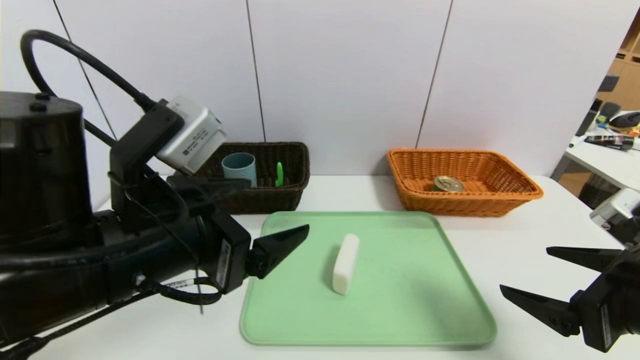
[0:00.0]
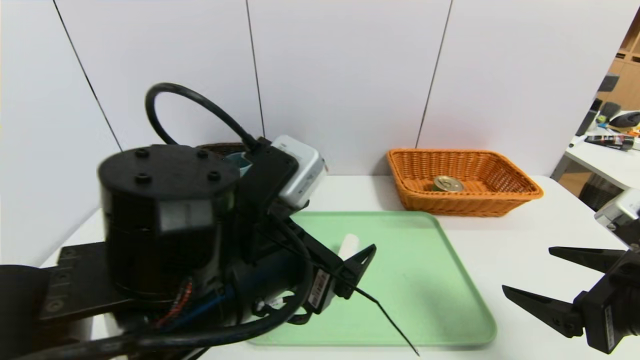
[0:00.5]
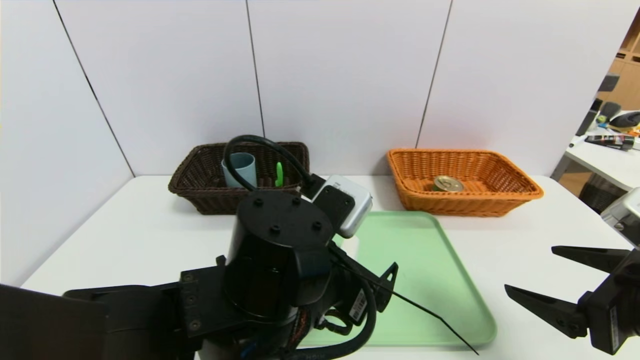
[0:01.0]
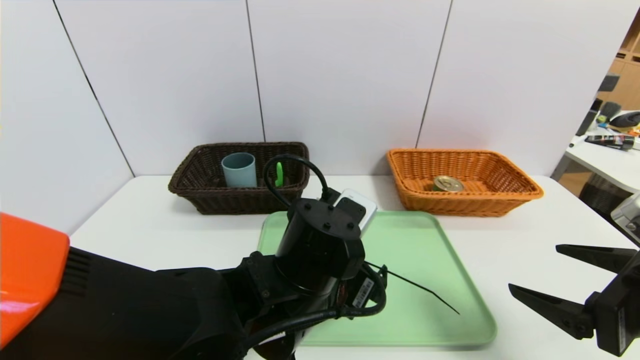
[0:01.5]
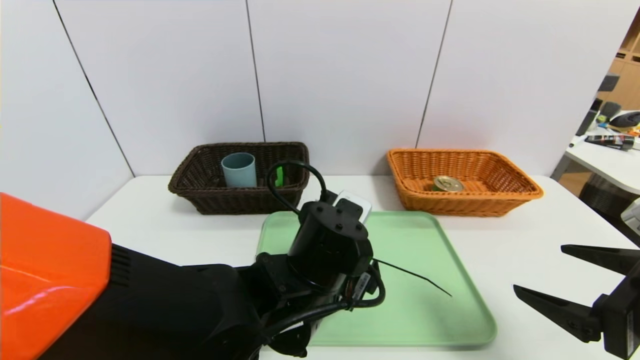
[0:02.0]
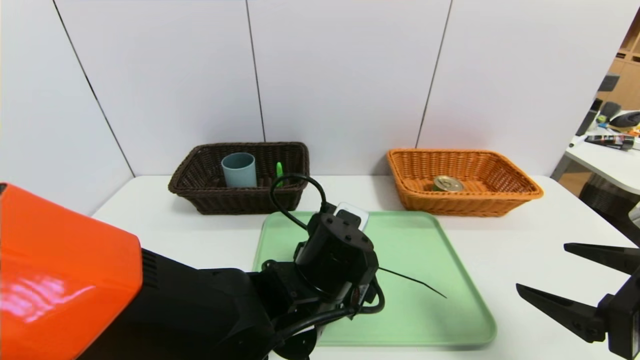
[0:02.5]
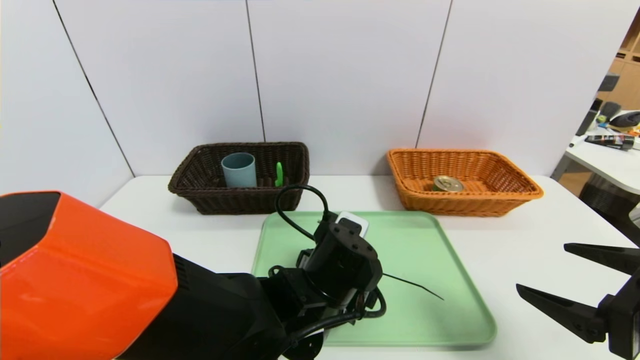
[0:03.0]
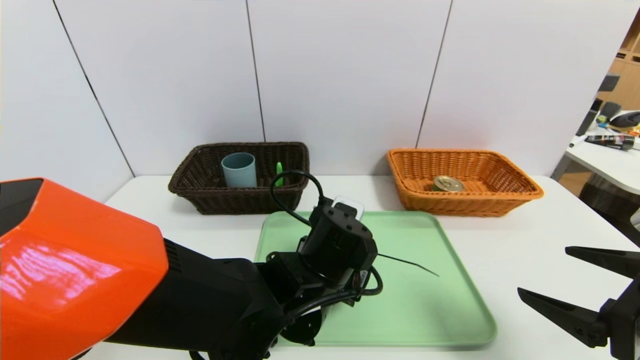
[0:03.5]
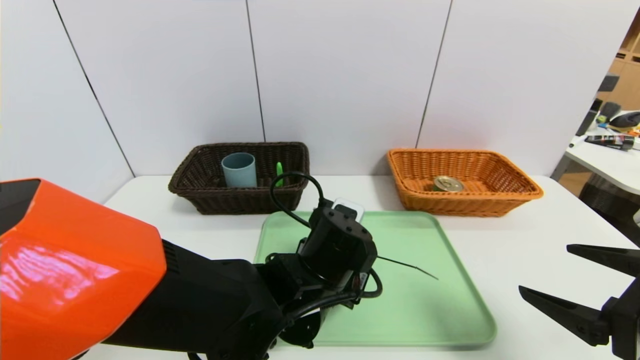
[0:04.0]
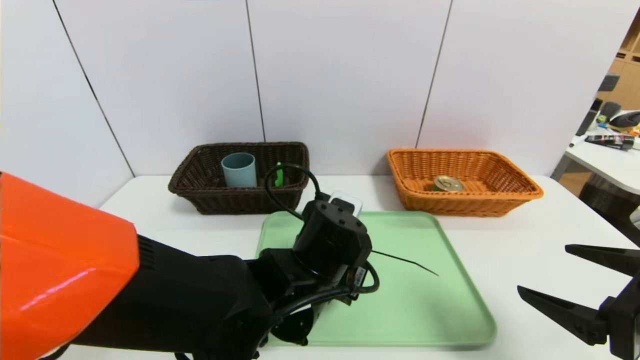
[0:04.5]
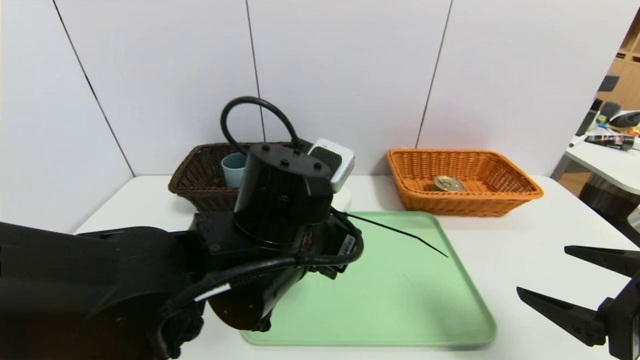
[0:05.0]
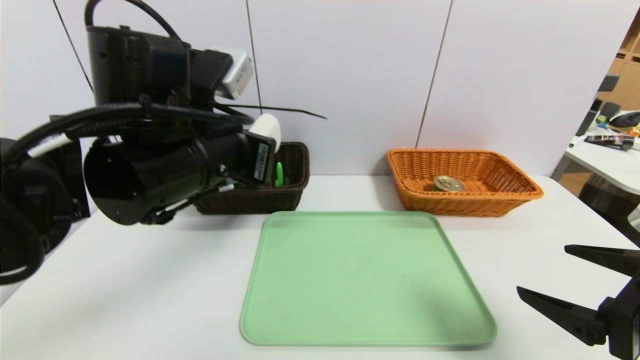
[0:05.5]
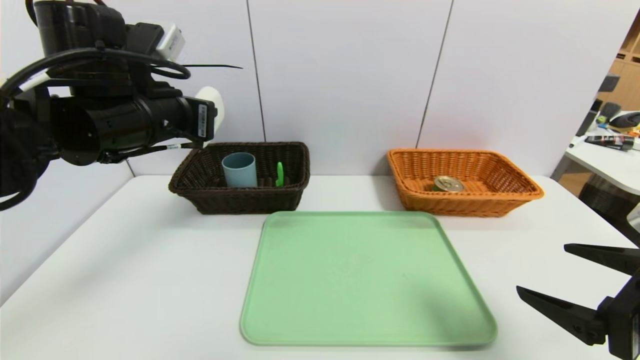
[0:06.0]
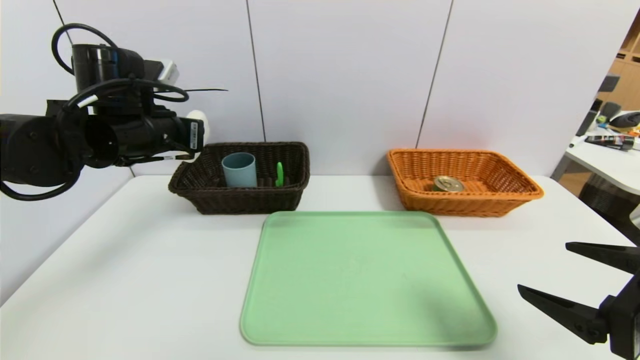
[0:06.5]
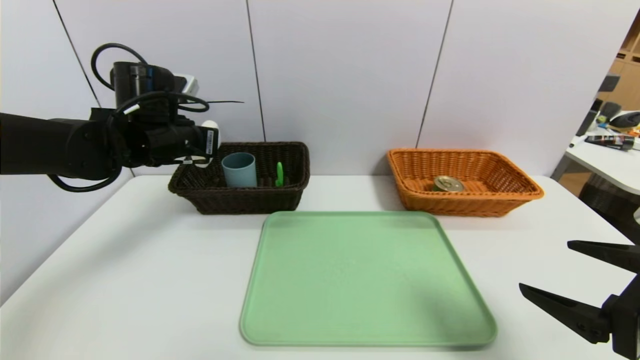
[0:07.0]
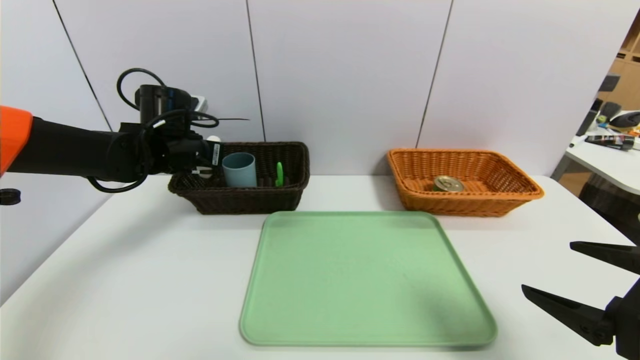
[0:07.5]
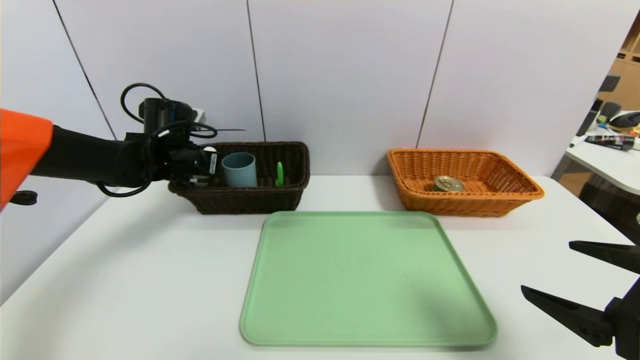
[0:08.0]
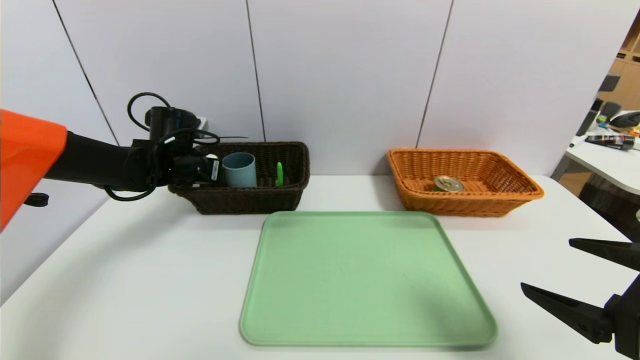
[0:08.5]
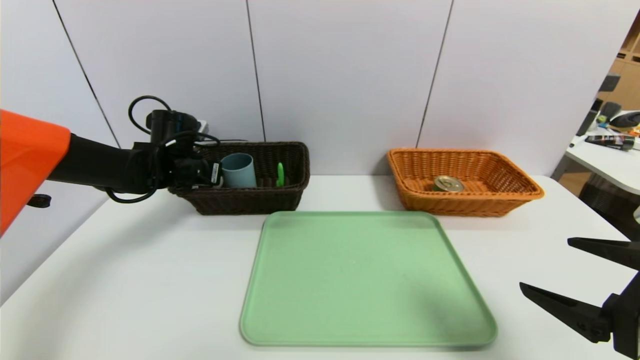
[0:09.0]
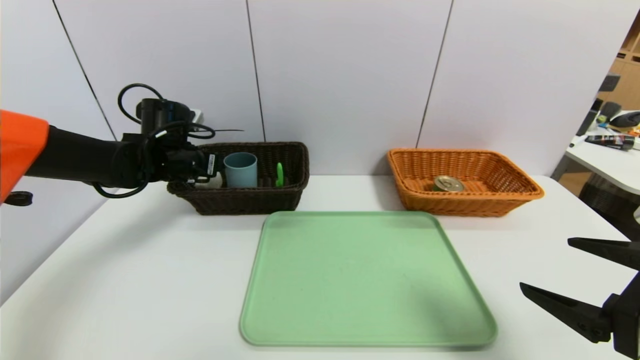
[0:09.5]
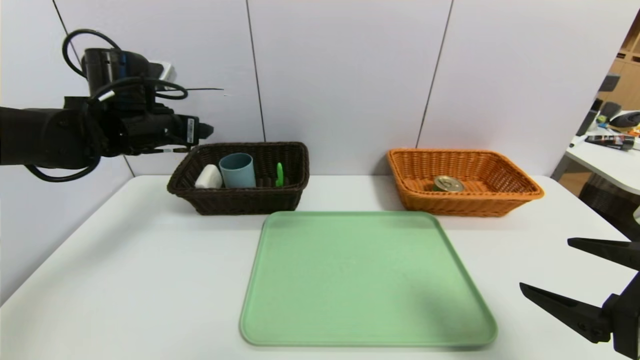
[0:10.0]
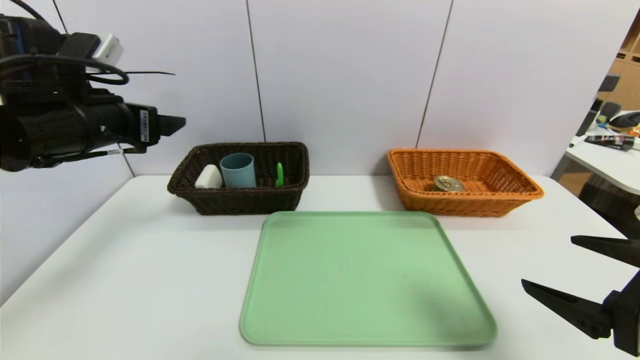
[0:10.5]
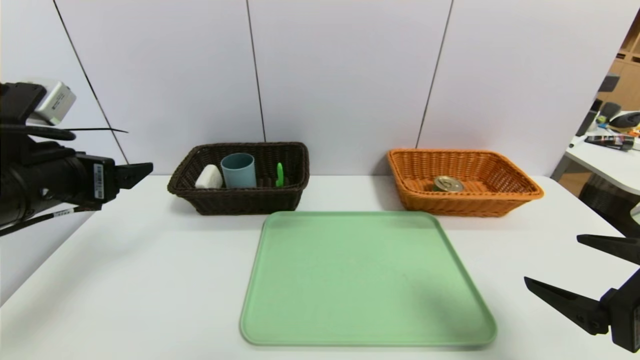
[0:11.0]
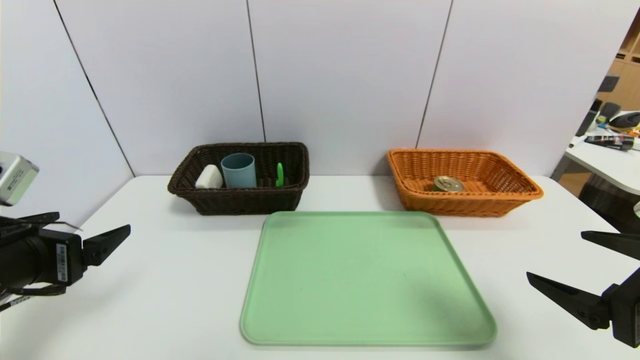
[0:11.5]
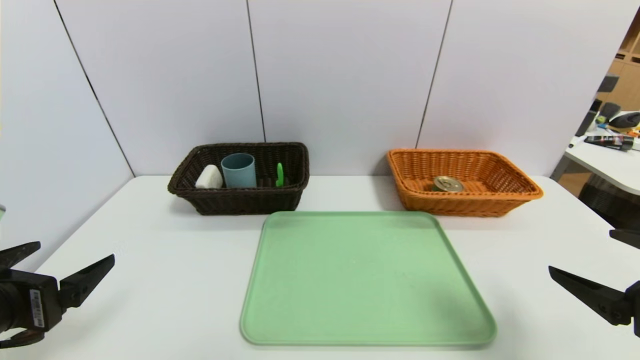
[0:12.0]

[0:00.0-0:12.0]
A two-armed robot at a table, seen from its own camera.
Task of the whole recording: place the food in the right basket with the right gripper, and place the non food items in the left basket with the left gripper.
Step, 0:00.0 to 0:10.0: Grasp the soap and put it in the left basket.
0:00.0 to 0:02.0: The left gripper is displaced to the right, downward and forward by some 20 cm.
0:02.0 to 0:04.0: The left gripper closes its fingers.
0:04.0 to 0:06.0: The left gripper travels to the left and upward by about 25 cm.
0:06.0 to 0:08.0: The left gripper travels forward and downward by approximately 15 cm.
0:08.0 to 0:10.0: The left gripper travels upward and backward by approximately 10 cm, and opens.
0:10.0 to 0:12.0: The left gripper shifts approximately 25 cm backward.

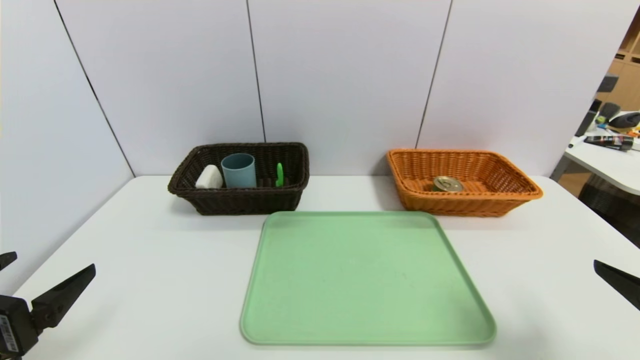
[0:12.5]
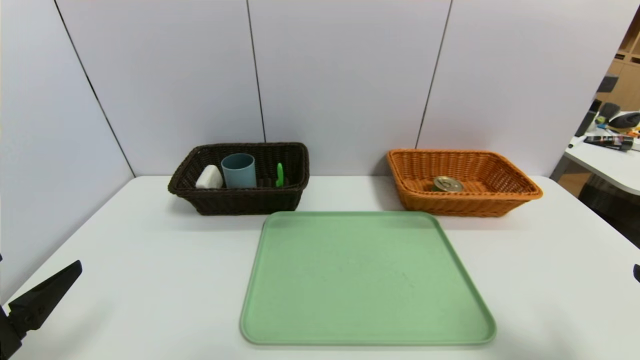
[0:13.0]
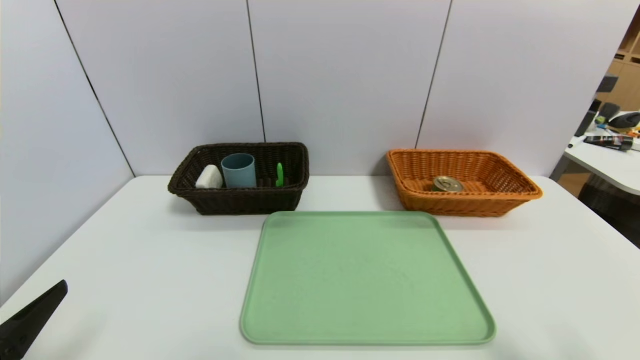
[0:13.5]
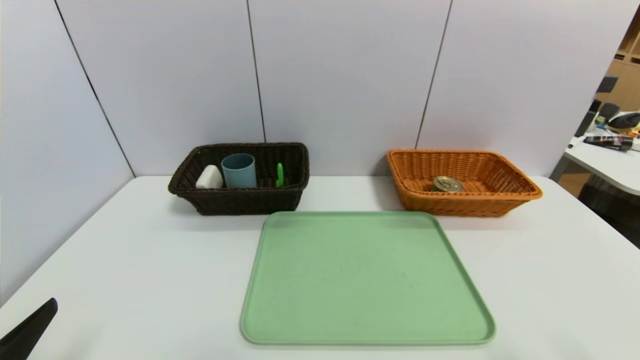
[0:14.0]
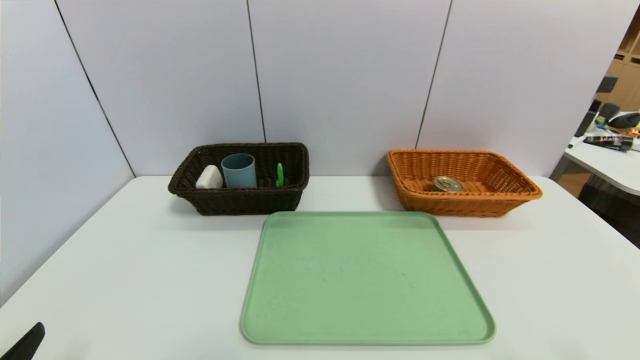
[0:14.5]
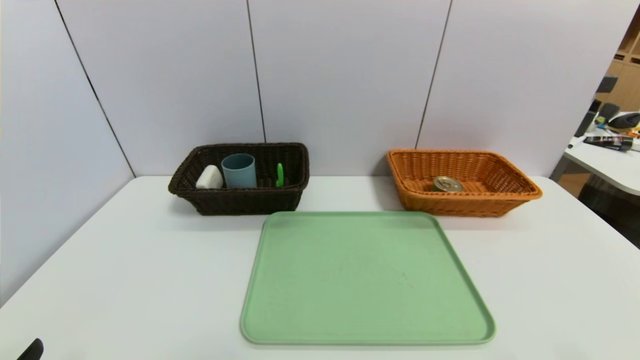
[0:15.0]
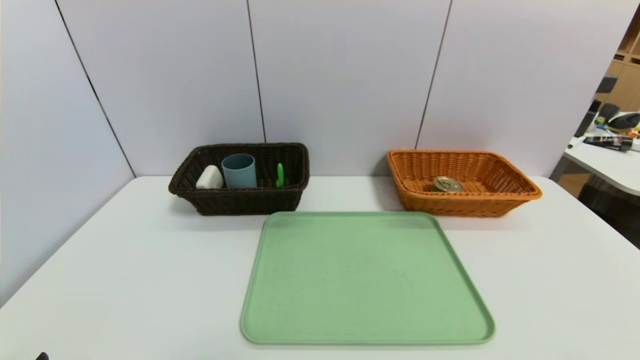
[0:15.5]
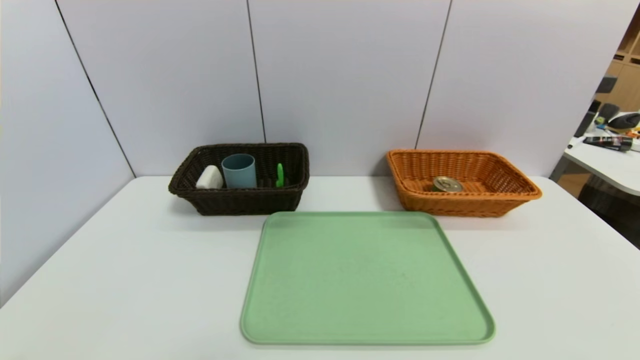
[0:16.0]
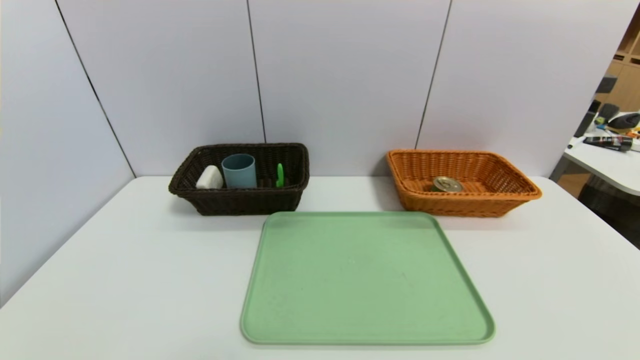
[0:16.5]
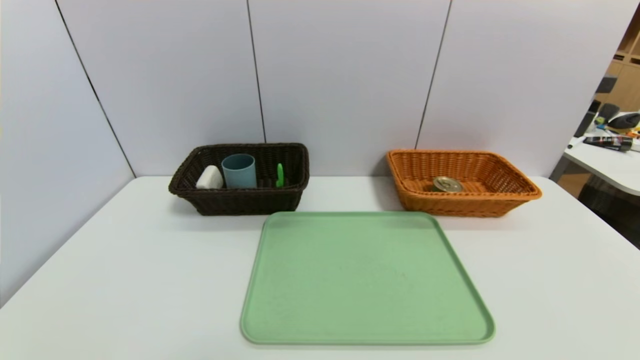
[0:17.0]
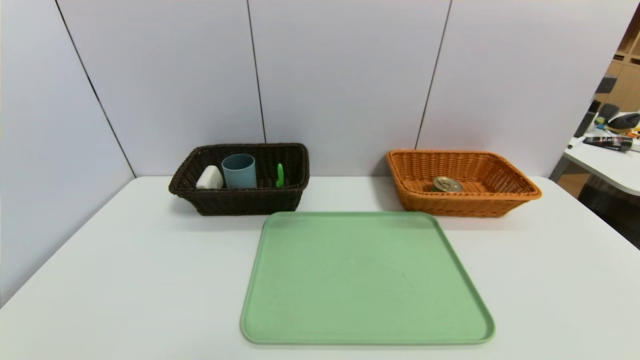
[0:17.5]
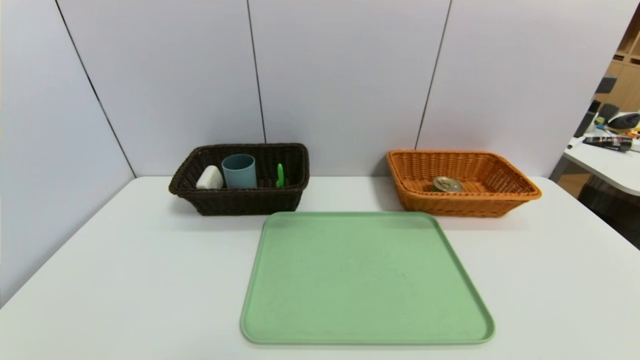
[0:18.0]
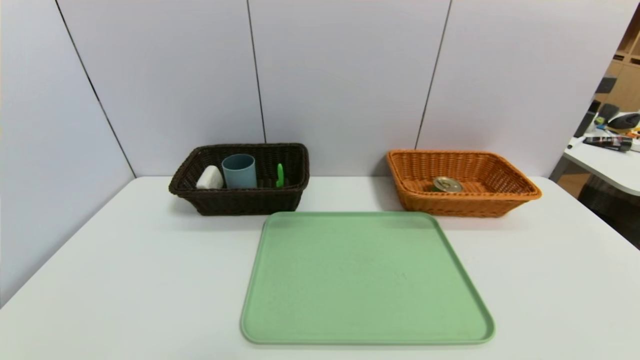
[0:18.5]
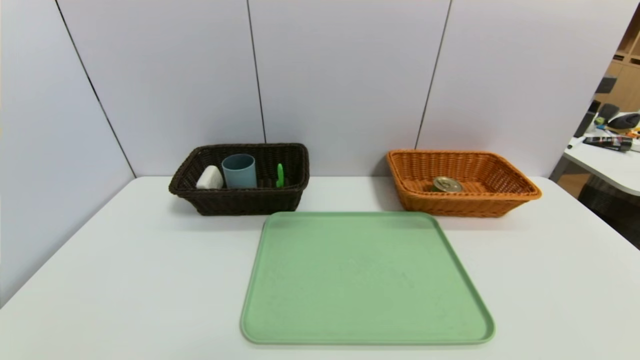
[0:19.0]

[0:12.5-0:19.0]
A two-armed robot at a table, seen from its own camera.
Task of the whole recording: place the food in the right basket with the right gripper, and place the non food items in the left basket with the left gripper.
0:12.5 to 0:14.5: Both grippers move backward, some 5 cm.

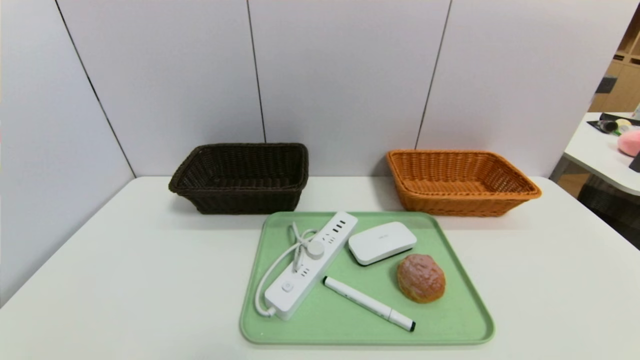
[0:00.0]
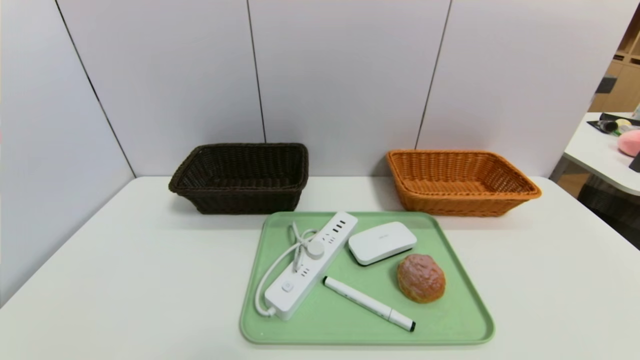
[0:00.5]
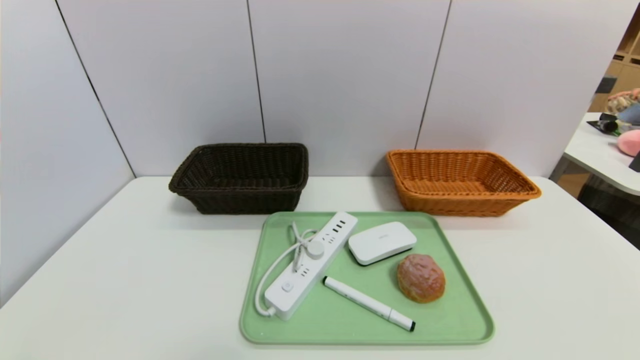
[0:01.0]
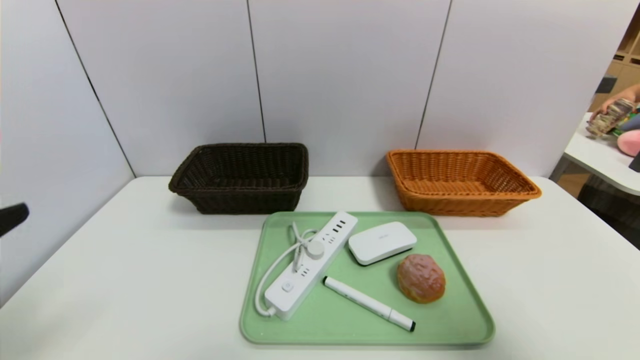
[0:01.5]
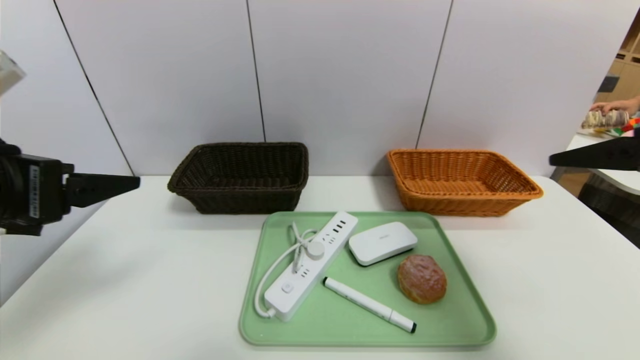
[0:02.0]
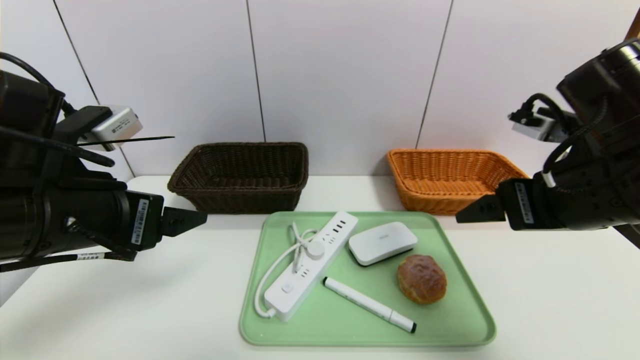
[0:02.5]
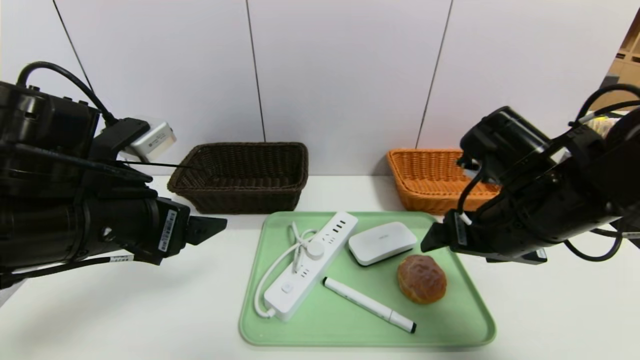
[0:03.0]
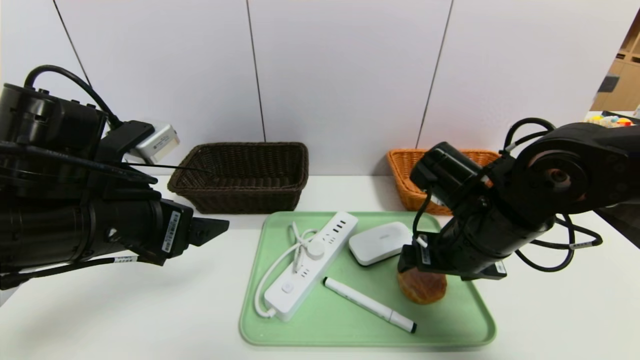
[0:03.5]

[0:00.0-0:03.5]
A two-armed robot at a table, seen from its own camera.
Task of the whole recording: place the food in the right basket with the right gripper, and place the non food items in the left basket with the left gripper.
0:00.0 to 0:02.0: Both grippers travel together upward and forward, roughly 30 cm.
0:02.0 to 0:03.5: The left gripper travels to the right and downward by approximately 10 cm; the right gripper goes about 20 cm downward, to the left and forward.
